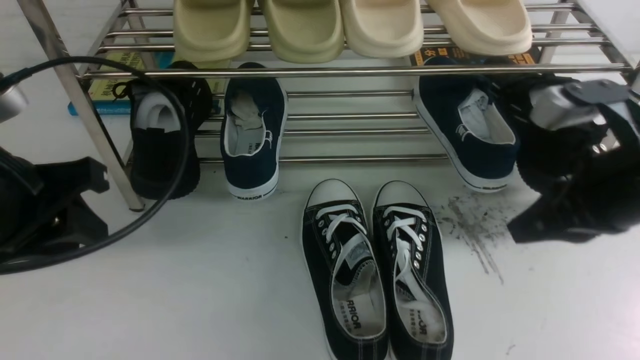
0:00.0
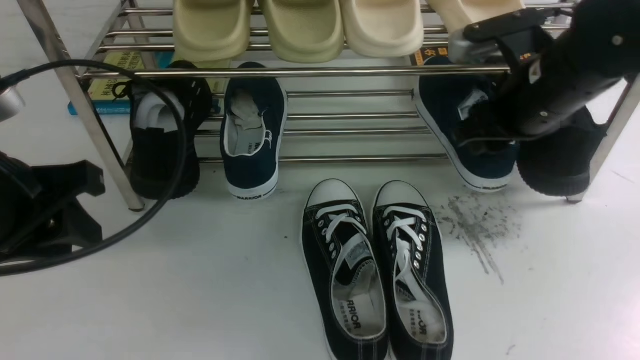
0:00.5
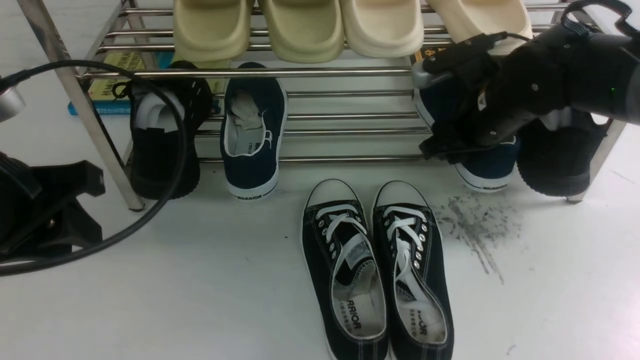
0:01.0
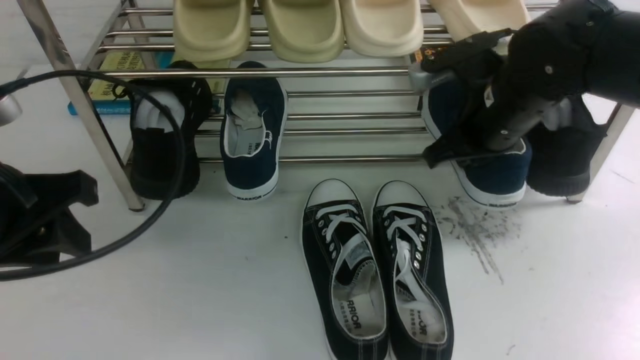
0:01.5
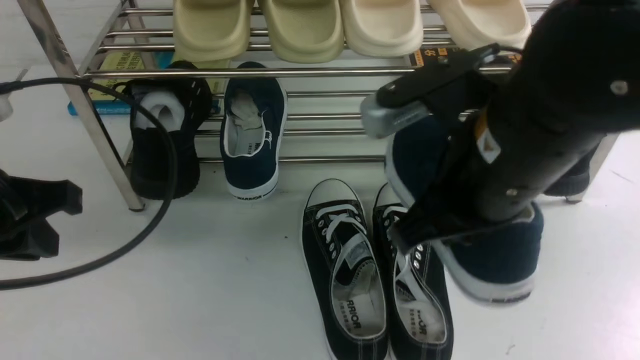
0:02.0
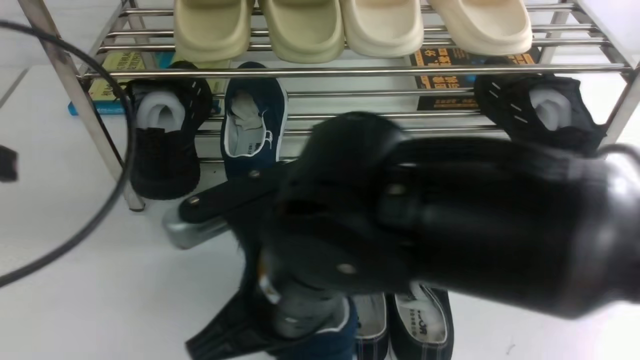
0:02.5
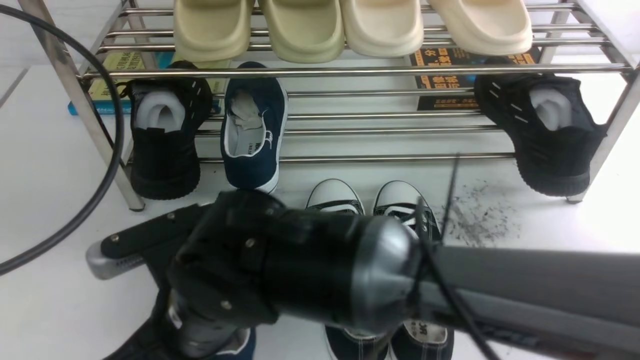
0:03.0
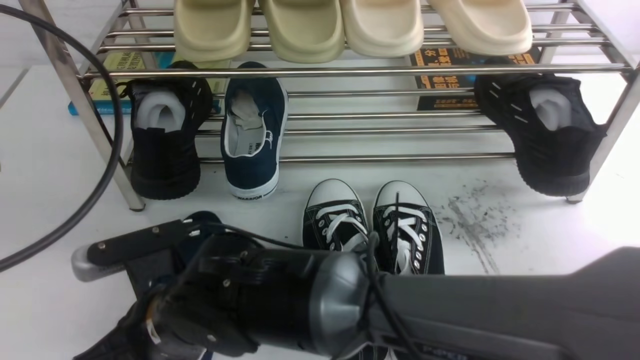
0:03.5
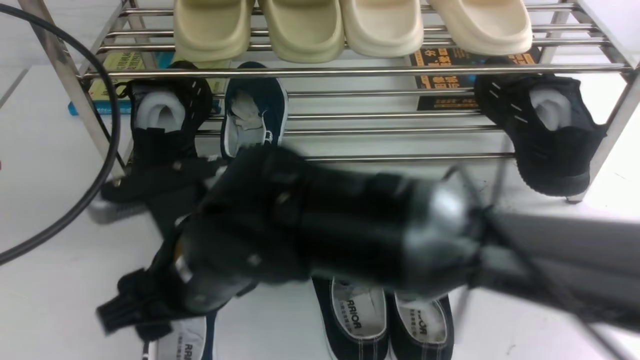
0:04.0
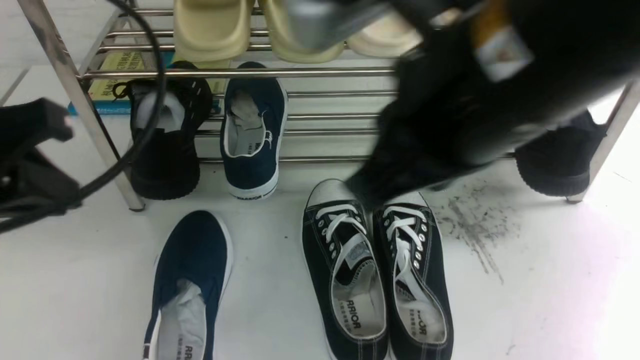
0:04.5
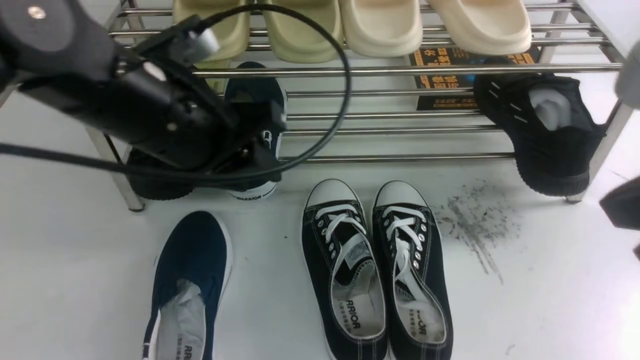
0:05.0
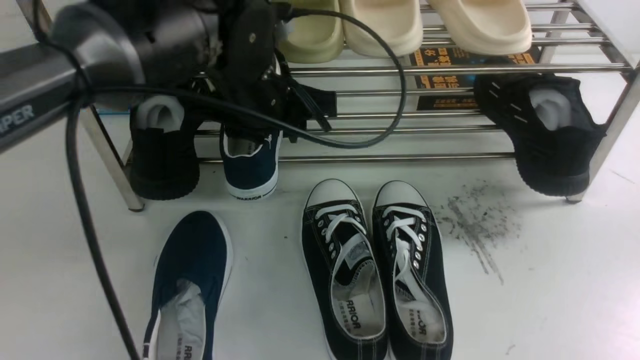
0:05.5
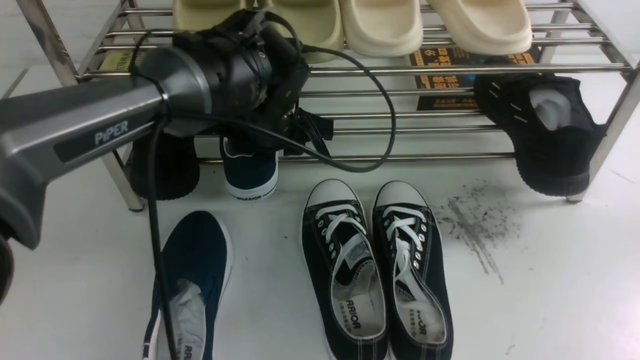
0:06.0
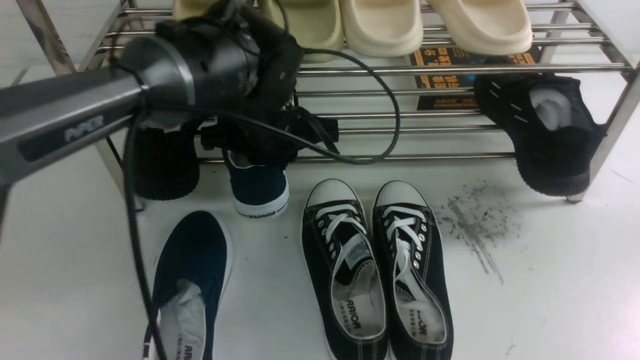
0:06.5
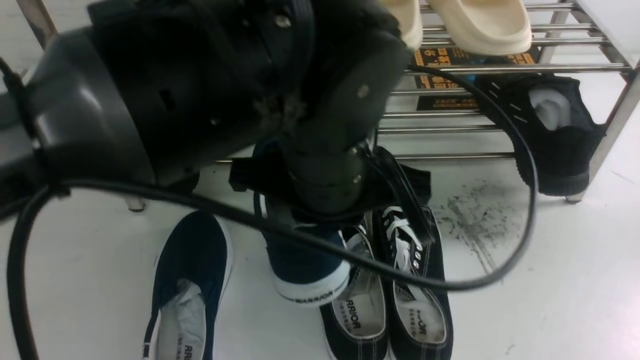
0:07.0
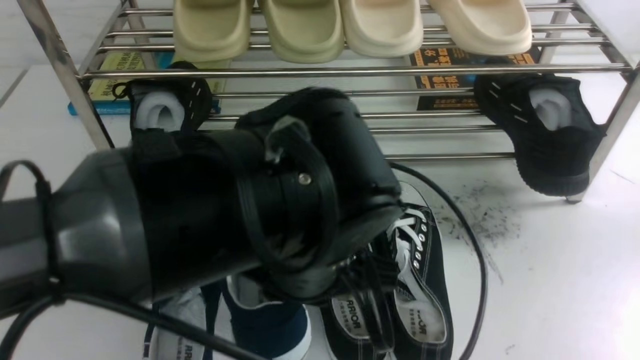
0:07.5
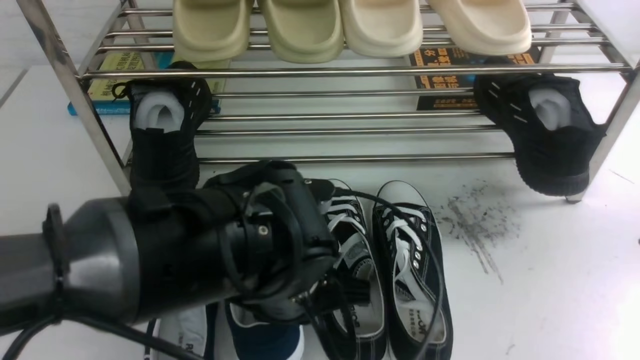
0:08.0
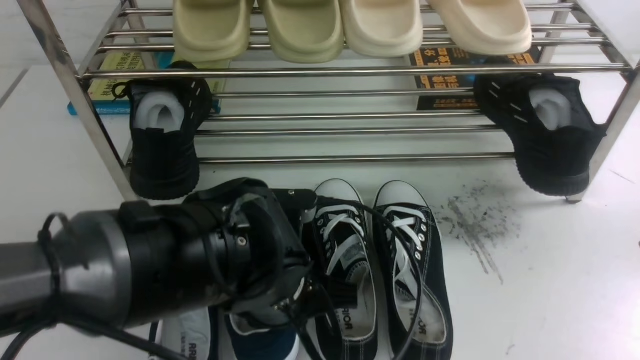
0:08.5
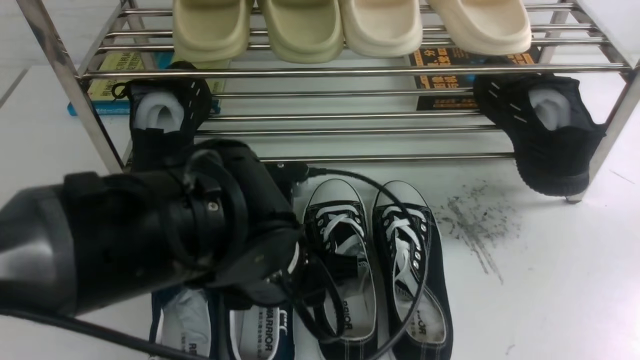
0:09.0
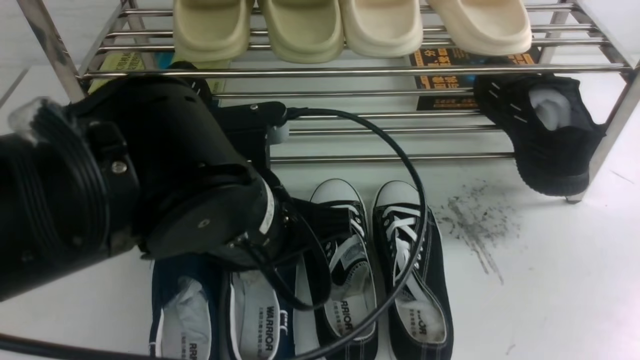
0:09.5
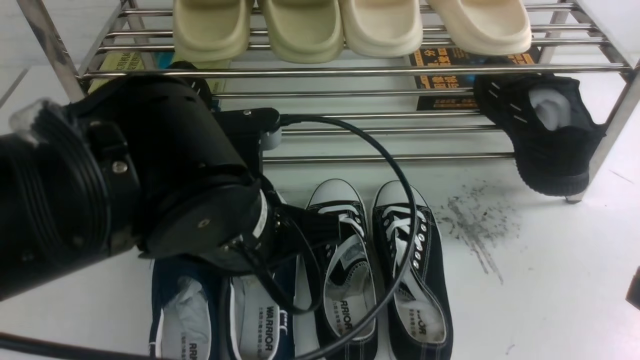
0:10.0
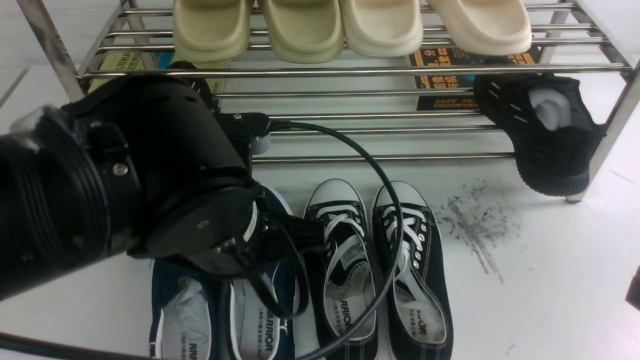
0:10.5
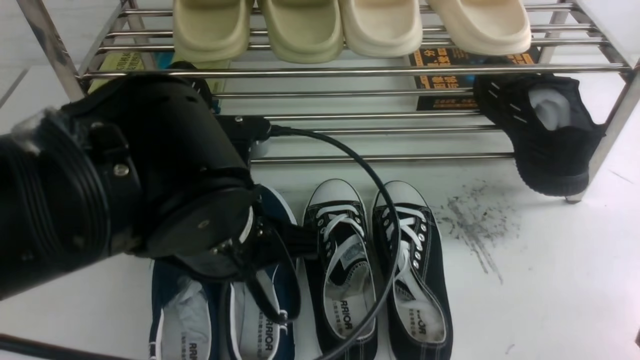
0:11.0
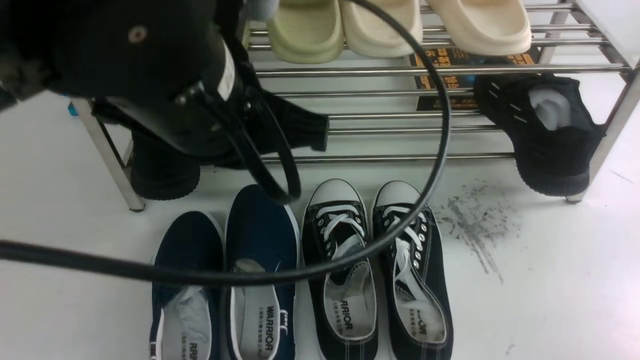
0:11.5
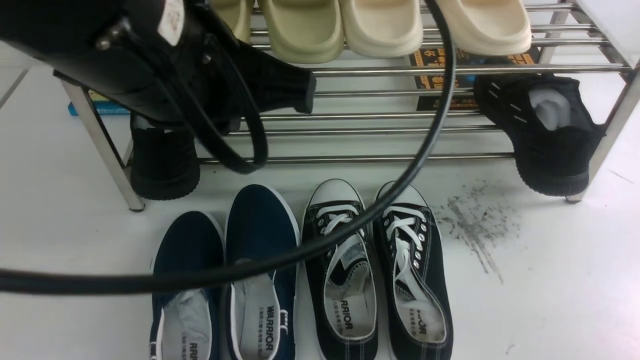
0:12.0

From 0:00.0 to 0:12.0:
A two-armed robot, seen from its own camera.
Step, from 0:02.0 to 0:04.0: use the right arm to take out the clamped shoe from the shoe rack and put it down.
Step, from 0:04.5 to 0:06.5: use the left arm to clamp a shoe on the left side of the shoe rack.
Step, from 0:07.0 to 0:09.0: Use your left arm to remove the clamped shoe from the shoe rack and put it down.
From 0:00.0 to 0:02.0: The left gripper closes up. Meanwhile the right gripper moves to the left, roughly 15 cm, travels forward and back again, some 15 cm each way, and opens, then closes again.
From 0:02.0 to 0:04.0: The right gripper shifts some 15 cm to the left, and opens its fingers. Meanwhile the left gripper travels upward by approximately 5 cm.
From 0:04.0 to 0:06.0: The left gripper shifts about 35 cm to the right, forward and downward, and opens its fingers. The right gripper moves to the right, roughly 30 cm, and closes its fingers.
From 0:06.0 to 0:08.0: The left gripper travels backward by some 20 cm, and closes.
From 0:08.0 to 0:10.0: The right gripper goes some 10 cm downward. Meanwhile the left gripper travels upward by roughly 5 cm, and opens, then closes once more.
From 0:10.0 to 0:12.0: The right gripper shifts approximately 15 cm downward and to the right; the left gripper heads upward, covering roughly 15 cm.

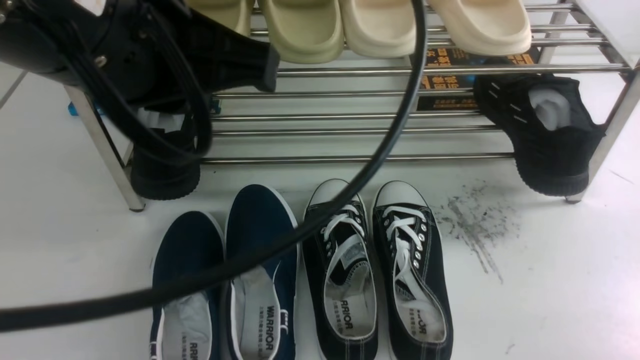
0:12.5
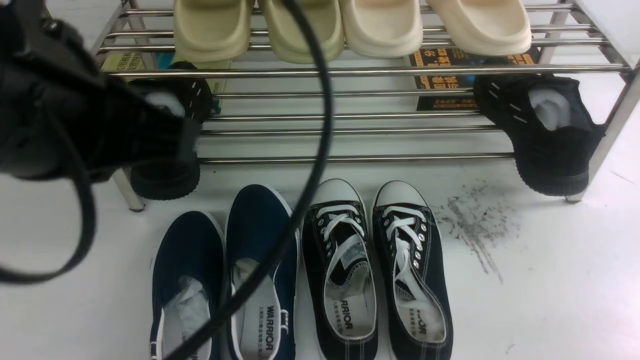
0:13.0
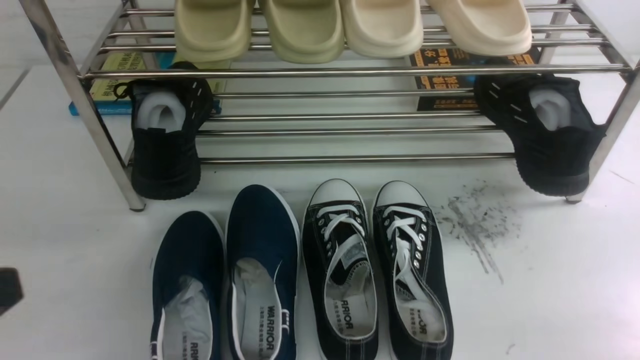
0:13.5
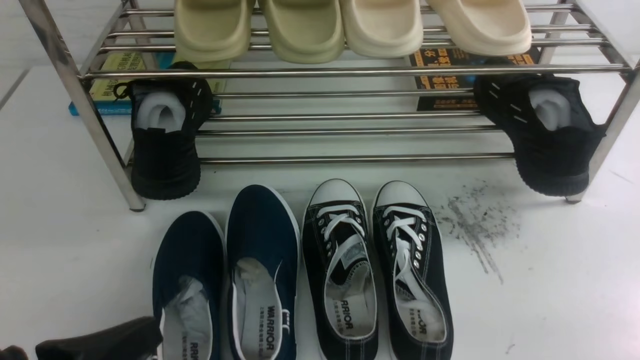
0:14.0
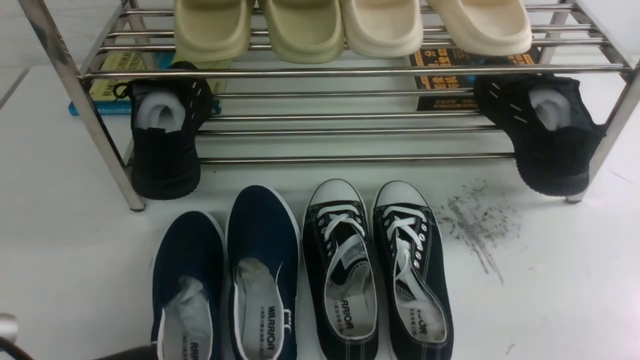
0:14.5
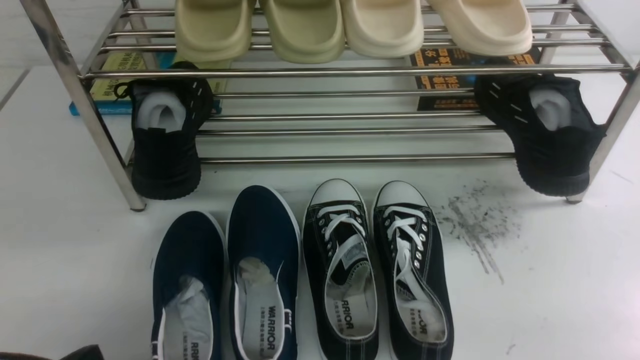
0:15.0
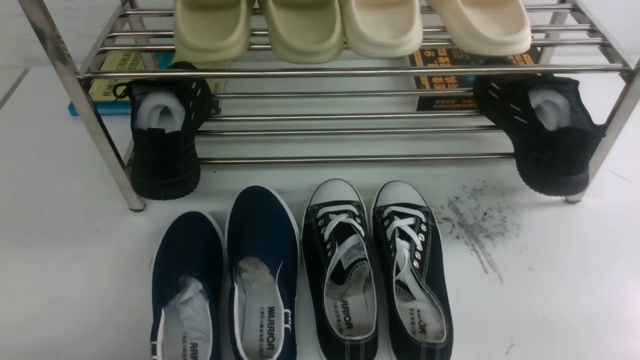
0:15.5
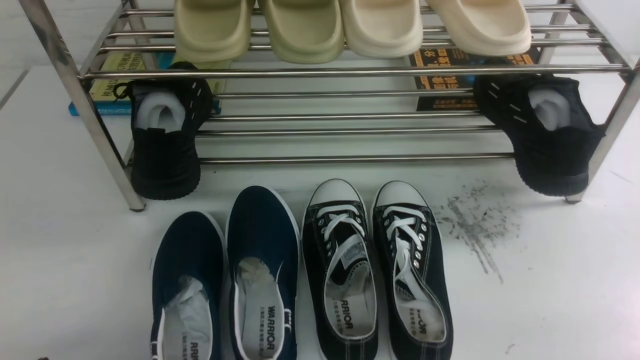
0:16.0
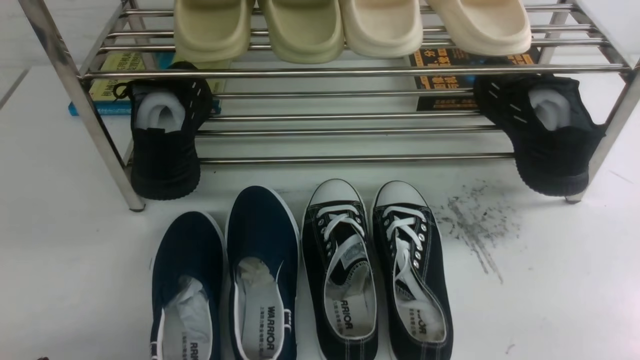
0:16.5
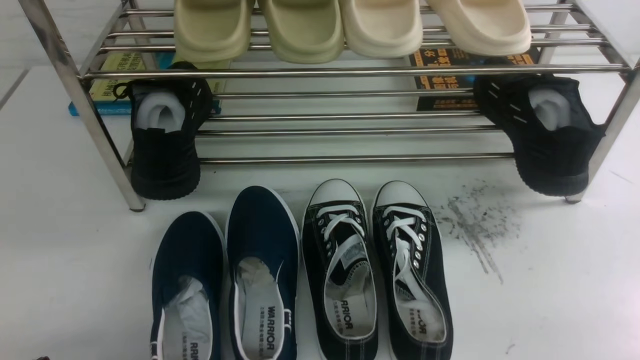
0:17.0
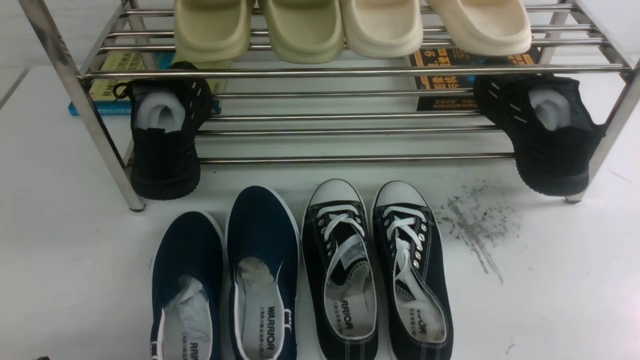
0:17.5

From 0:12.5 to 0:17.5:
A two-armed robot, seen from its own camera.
From 0:12.5 to 0:15.0: The left gripper moves downward and to the left, some 30 cm.

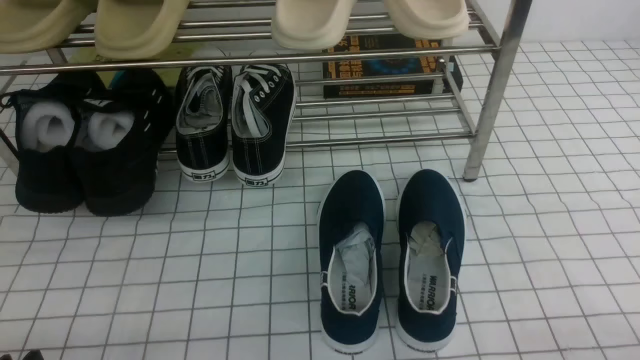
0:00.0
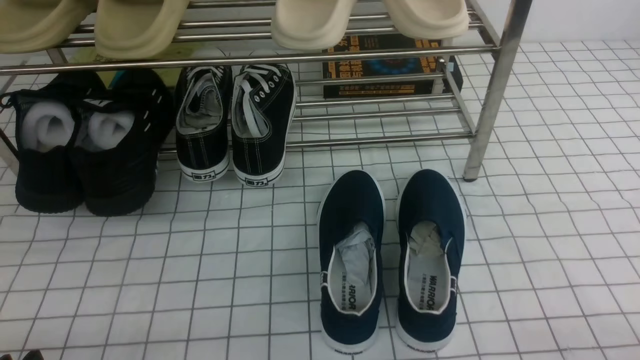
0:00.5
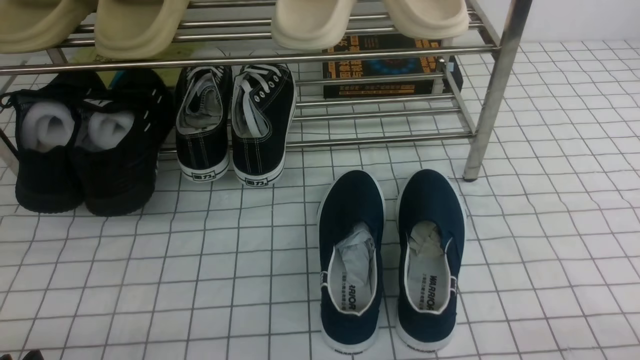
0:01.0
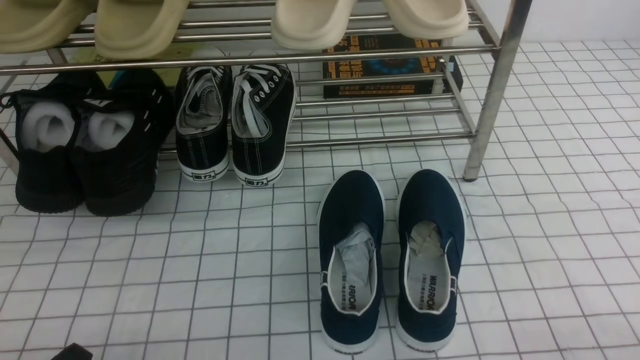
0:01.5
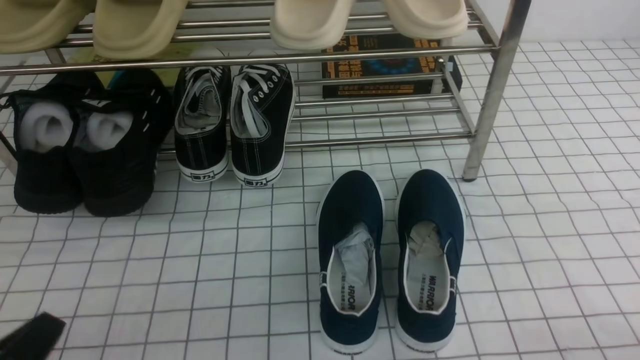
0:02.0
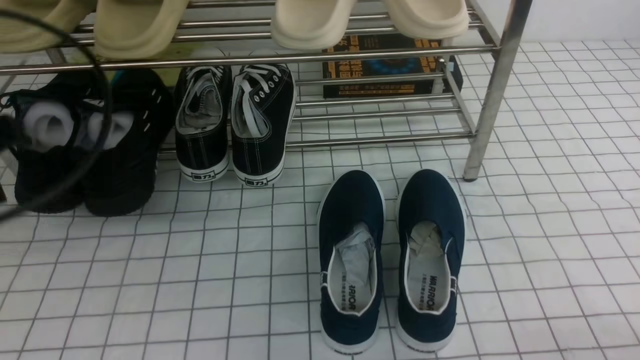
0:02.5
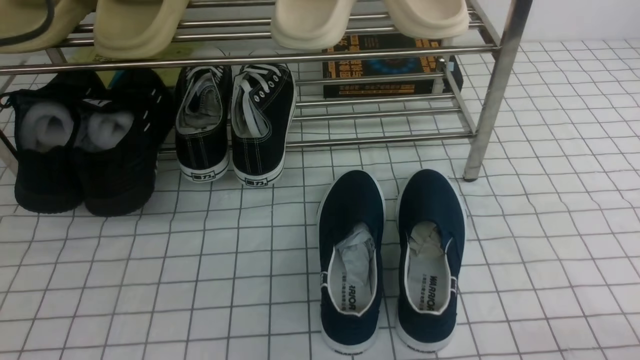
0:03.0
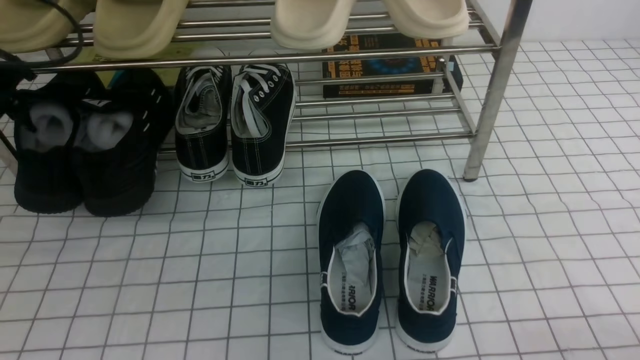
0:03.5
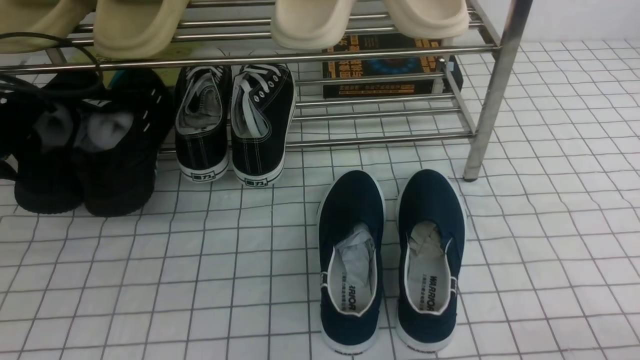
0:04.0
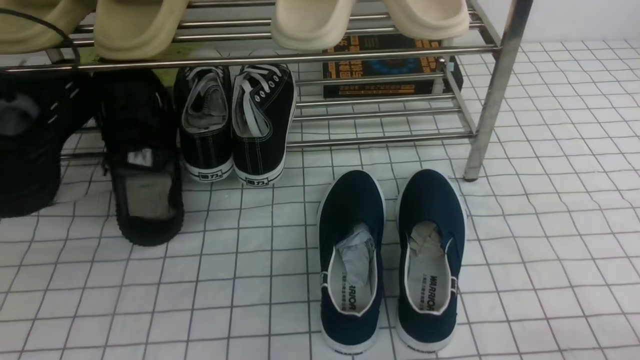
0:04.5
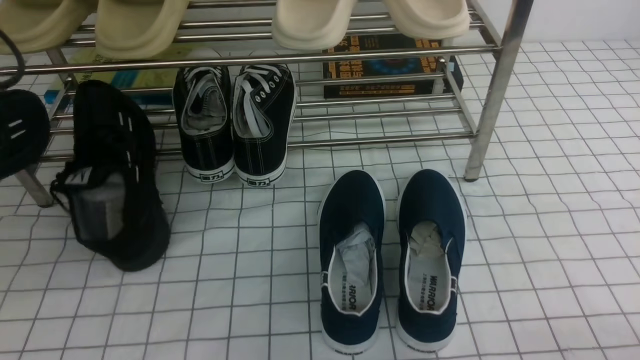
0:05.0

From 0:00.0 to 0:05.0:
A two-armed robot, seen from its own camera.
Step, from 0:00.0 to 0:04.0: use the left arm to clamp a shoe on the left side of the shoe rack.
From 0:00.0 to 0:02.5: The left gripper goes roughly 25 cm upward and forward, and closes up.
From 0:02.5 to 0:05.0: The left gripper shifts about 5 cm to the left, moves approximately 20 cm forward and comes back, and opens and closes again.
